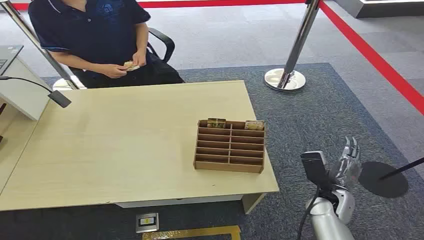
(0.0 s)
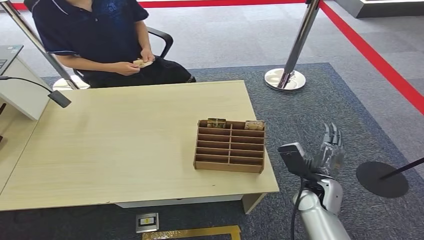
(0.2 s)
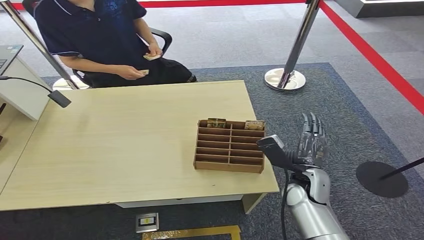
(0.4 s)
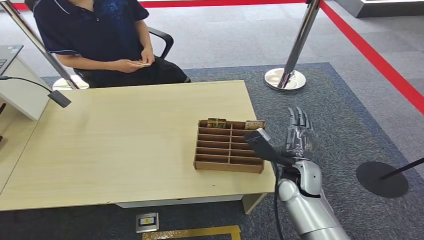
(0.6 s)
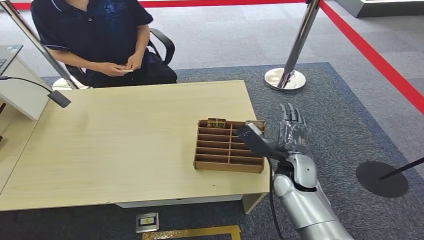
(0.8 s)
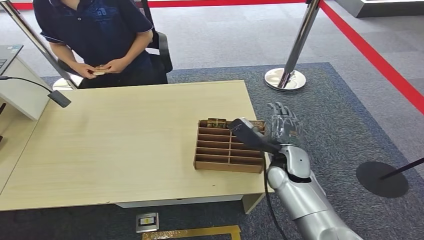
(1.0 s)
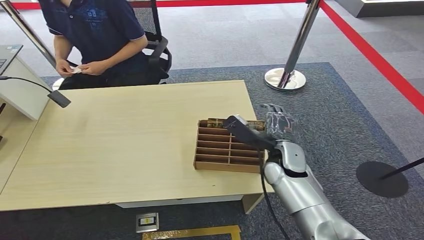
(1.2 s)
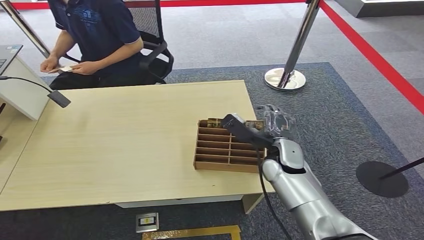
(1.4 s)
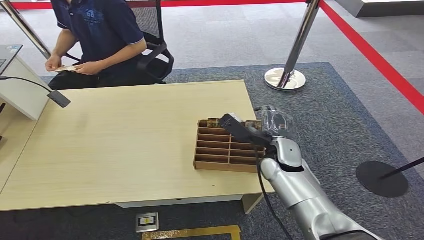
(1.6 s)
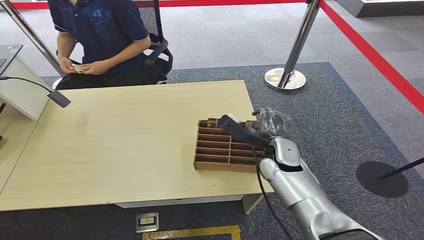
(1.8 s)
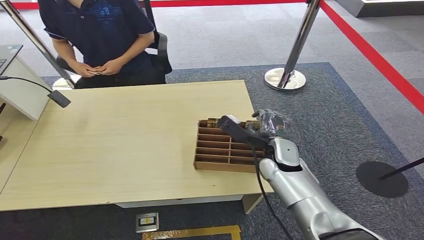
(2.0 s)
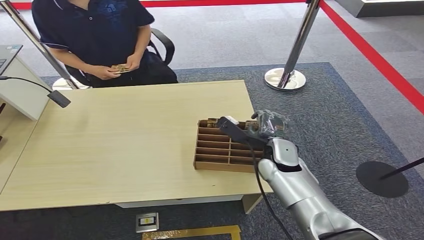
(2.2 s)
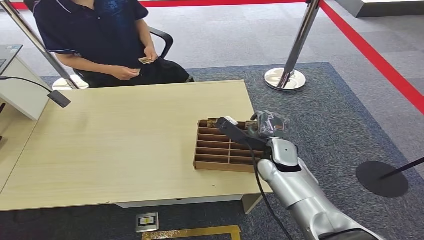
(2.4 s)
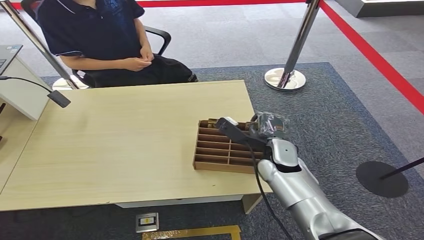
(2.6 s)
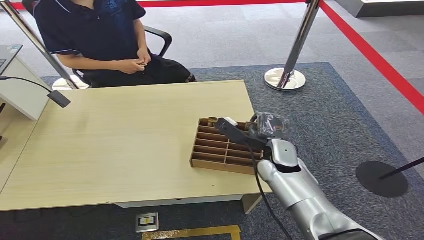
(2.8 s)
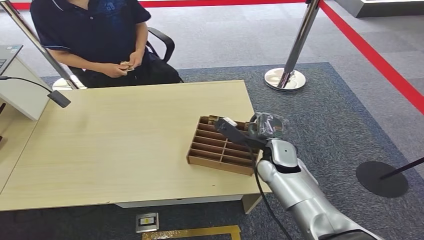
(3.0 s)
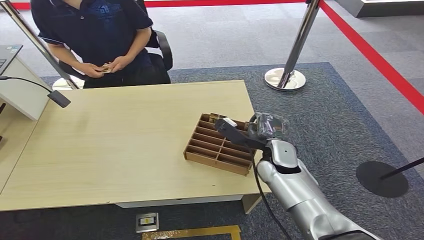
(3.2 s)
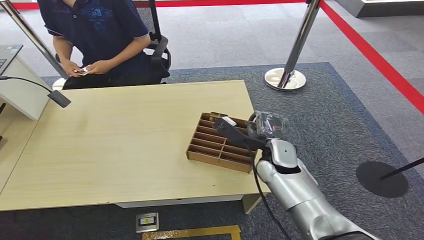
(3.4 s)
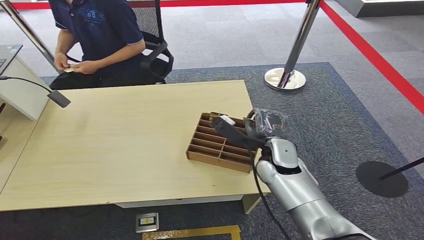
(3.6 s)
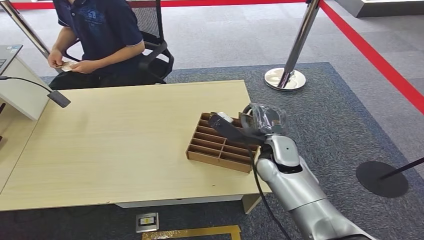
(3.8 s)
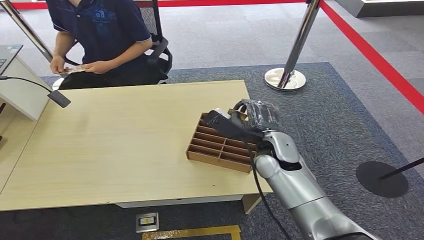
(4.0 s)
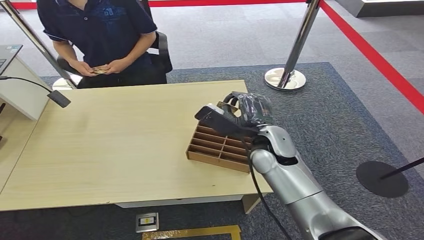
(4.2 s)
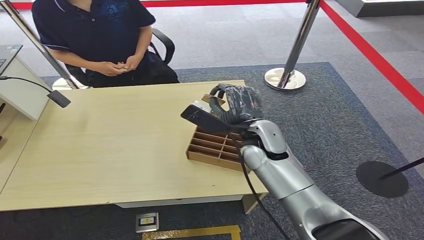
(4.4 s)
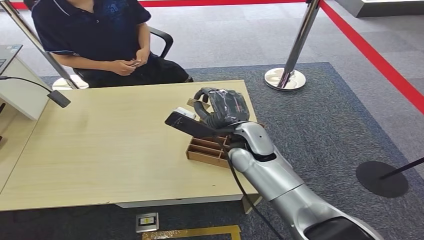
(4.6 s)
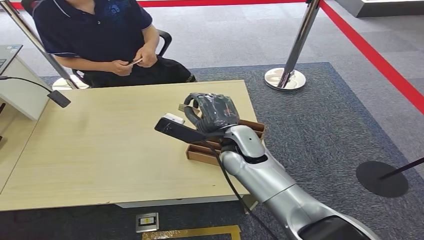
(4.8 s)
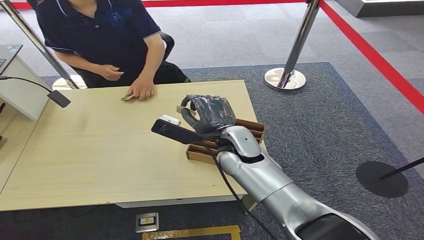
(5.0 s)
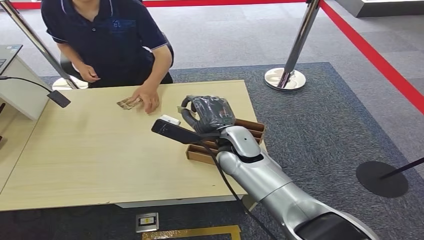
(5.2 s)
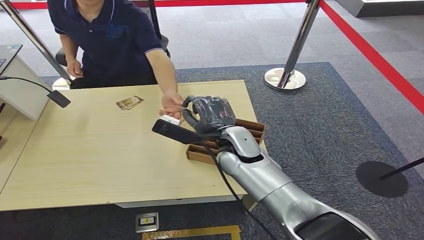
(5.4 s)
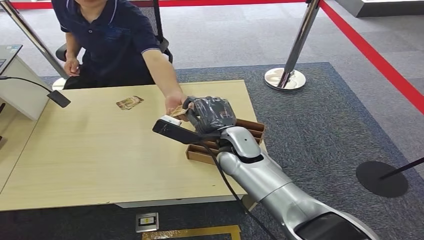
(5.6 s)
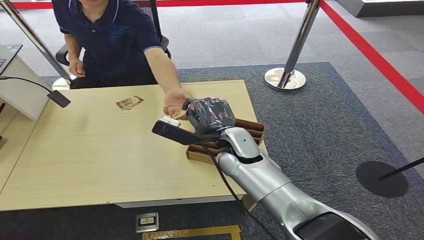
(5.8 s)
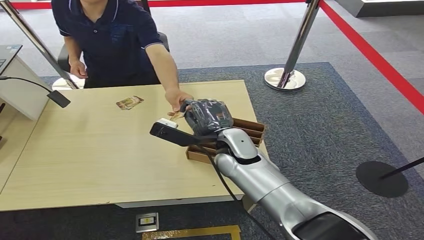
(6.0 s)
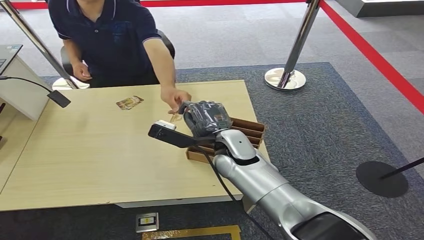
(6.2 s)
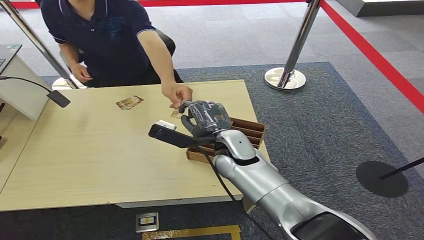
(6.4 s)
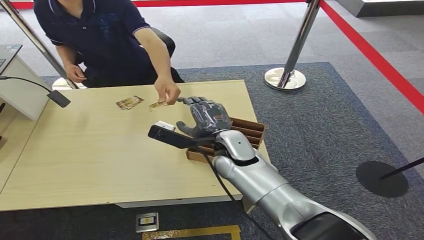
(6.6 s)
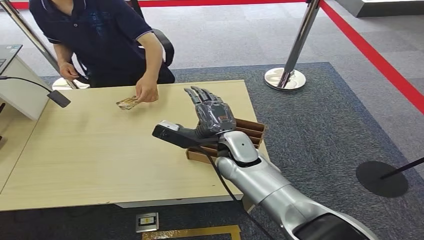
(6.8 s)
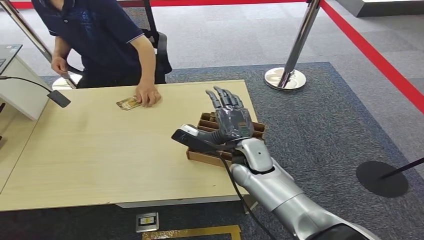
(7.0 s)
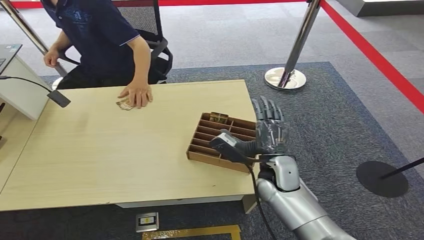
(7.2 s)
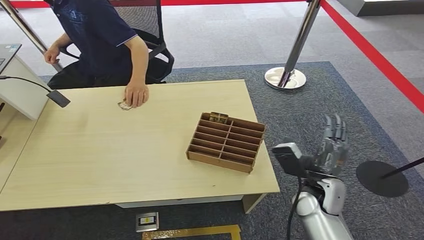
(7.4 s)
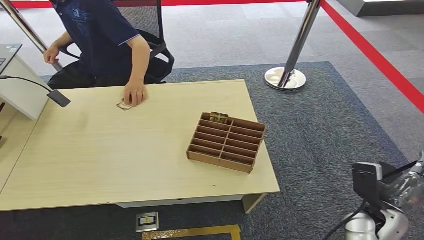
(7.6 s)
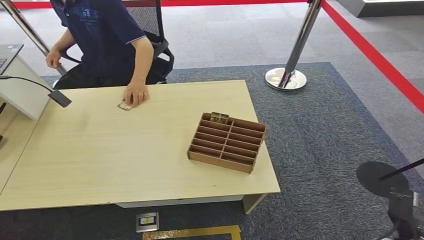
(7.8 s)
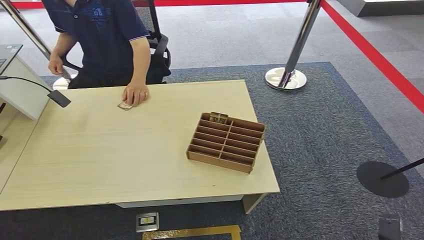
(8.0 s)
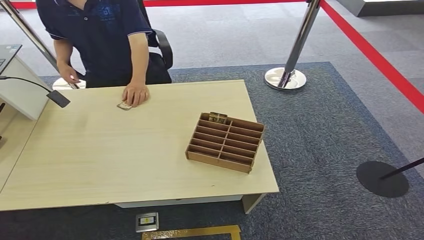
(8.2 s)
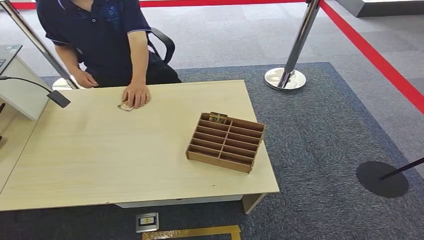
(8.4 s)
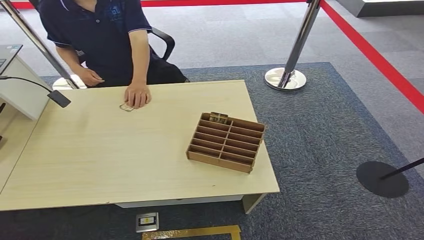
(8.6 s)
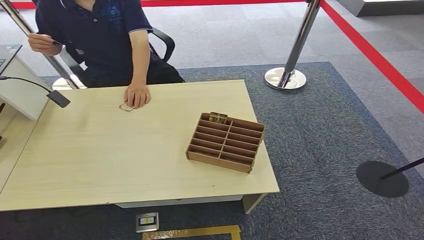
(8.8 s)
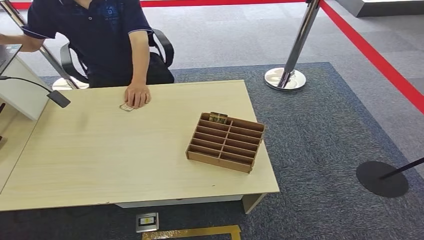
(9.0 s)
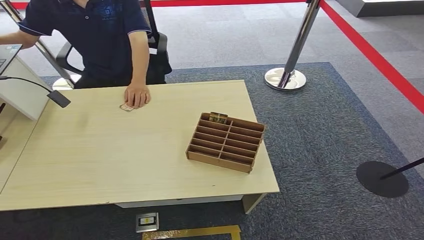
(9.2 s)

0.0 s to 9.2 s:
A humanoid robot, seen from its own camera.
Step, 0.0 to 4.4 s: Pick up the key card from the card box.
Step, 4.8 to 9.2 s: Hand the key card to the target.
1.6 to 3.0 s: The hands make only small movements.
3.0 to 4.6 s: The right hand travels upward and to the left by roughly 10 cm.
4.6 to 6.2 s: The hands make only small movements.
6.2 to 7.6 s: The right hand travels to the right, backward and downward by about 35 cm.
7.6 to 9.2 s: The right hand moves downward and backward, some 25 cm. The left hand changes place by roughly 5 cm.
